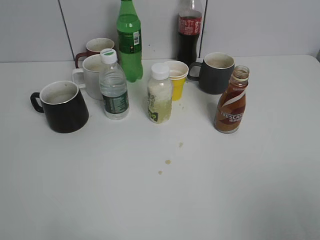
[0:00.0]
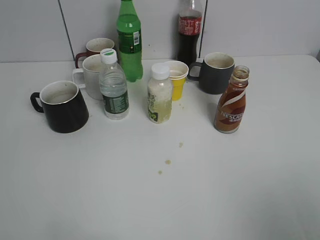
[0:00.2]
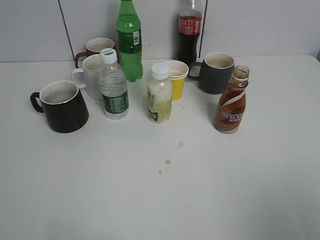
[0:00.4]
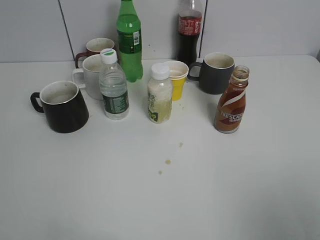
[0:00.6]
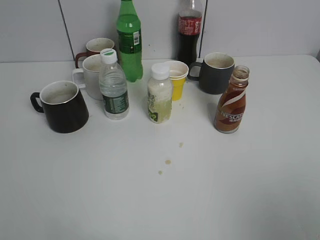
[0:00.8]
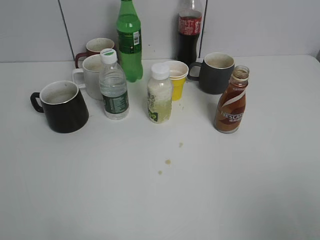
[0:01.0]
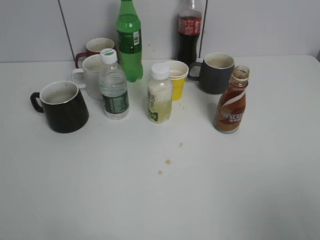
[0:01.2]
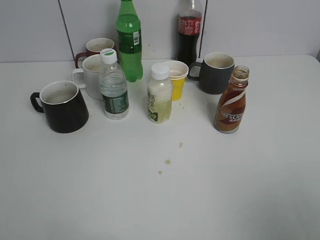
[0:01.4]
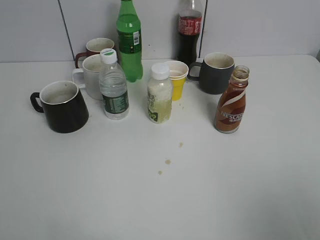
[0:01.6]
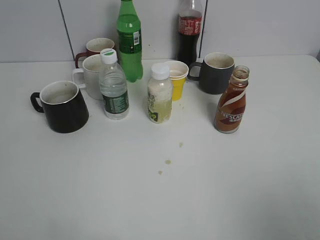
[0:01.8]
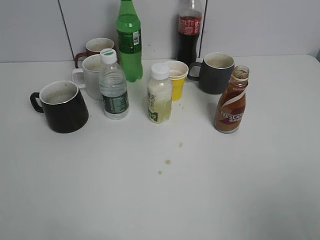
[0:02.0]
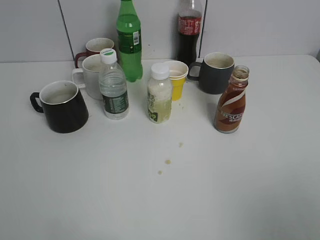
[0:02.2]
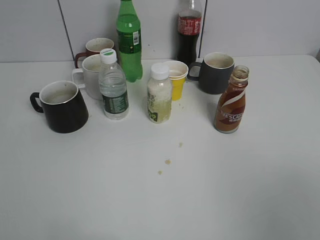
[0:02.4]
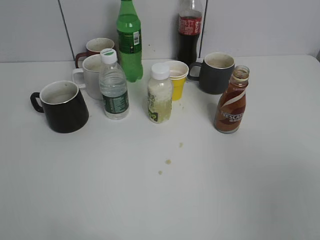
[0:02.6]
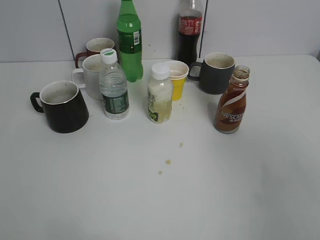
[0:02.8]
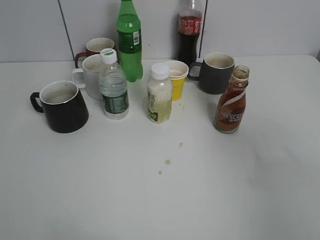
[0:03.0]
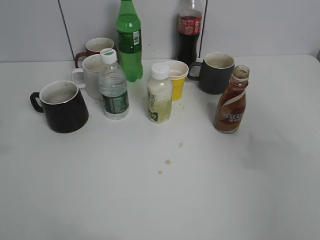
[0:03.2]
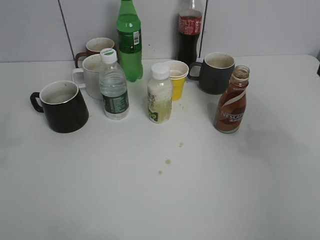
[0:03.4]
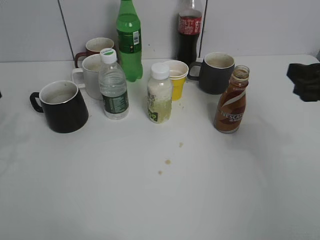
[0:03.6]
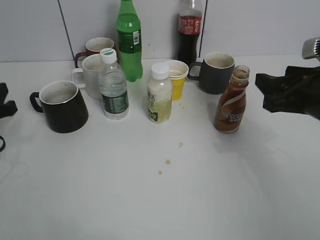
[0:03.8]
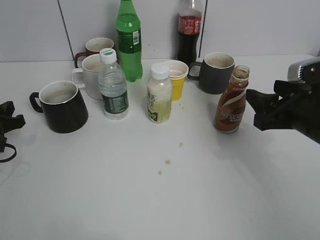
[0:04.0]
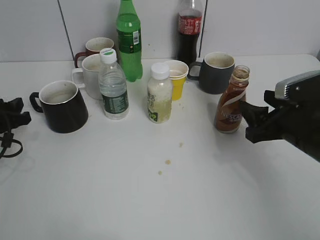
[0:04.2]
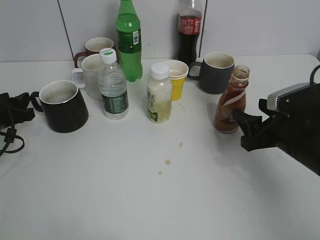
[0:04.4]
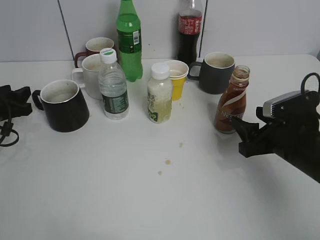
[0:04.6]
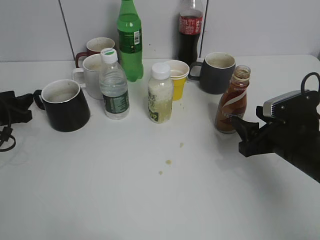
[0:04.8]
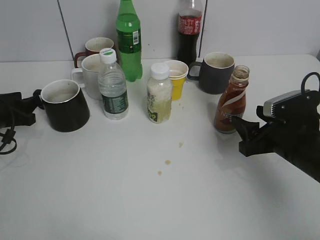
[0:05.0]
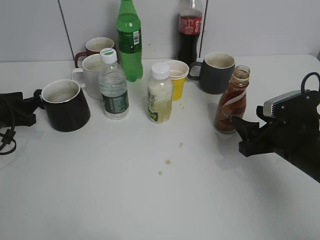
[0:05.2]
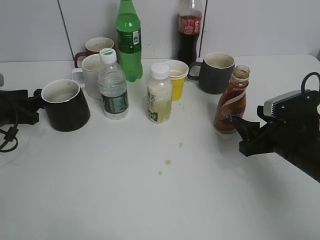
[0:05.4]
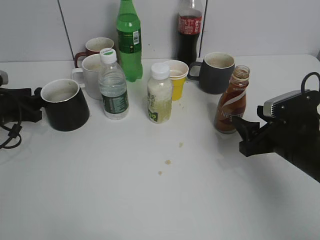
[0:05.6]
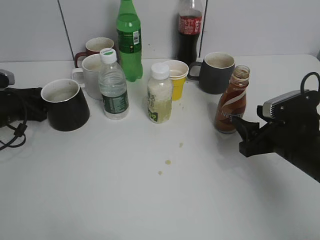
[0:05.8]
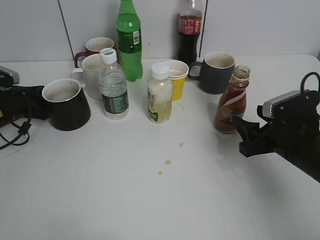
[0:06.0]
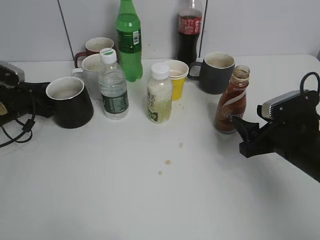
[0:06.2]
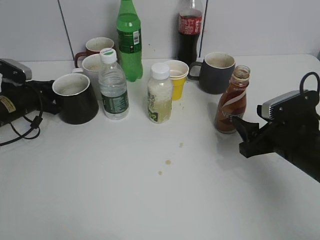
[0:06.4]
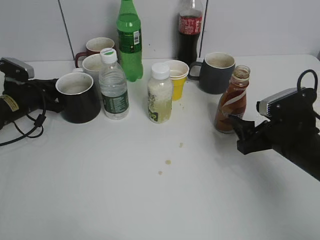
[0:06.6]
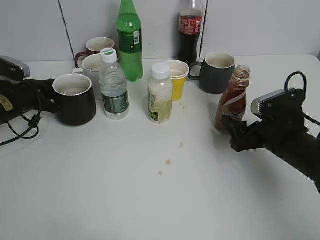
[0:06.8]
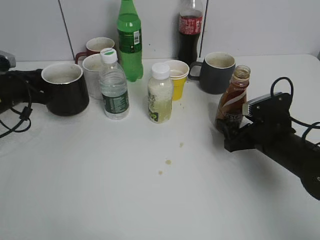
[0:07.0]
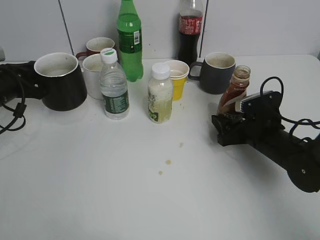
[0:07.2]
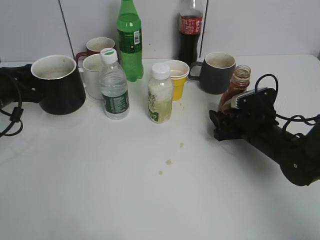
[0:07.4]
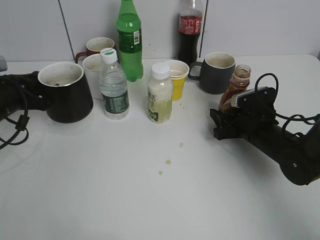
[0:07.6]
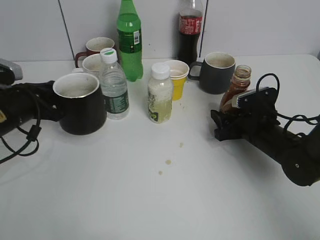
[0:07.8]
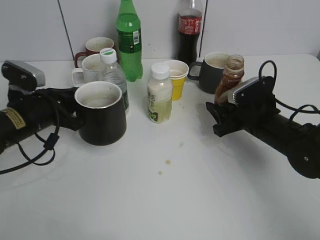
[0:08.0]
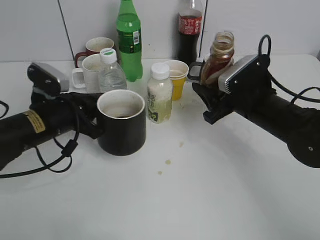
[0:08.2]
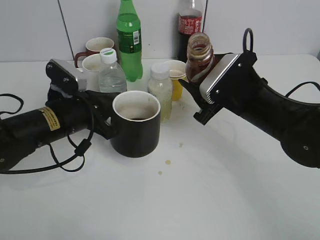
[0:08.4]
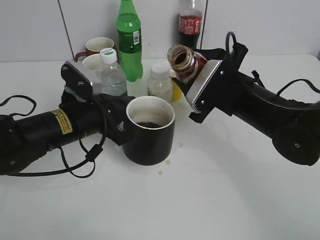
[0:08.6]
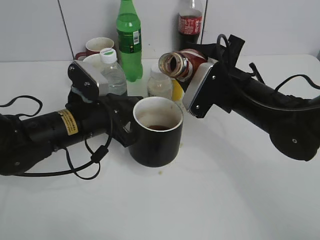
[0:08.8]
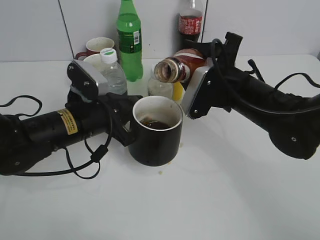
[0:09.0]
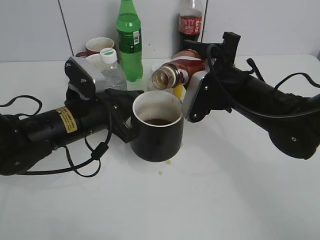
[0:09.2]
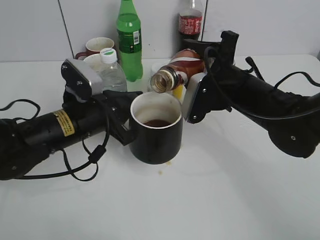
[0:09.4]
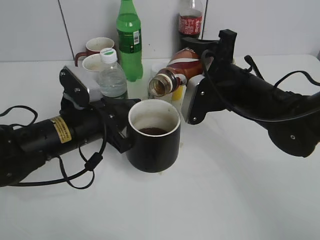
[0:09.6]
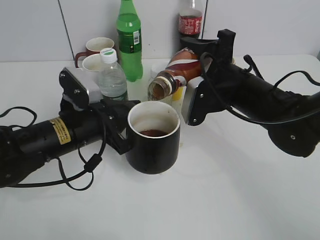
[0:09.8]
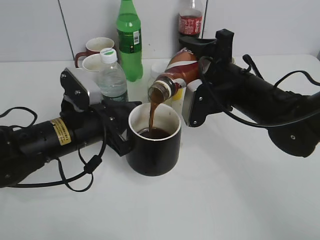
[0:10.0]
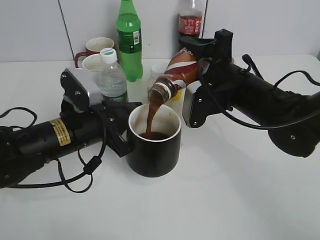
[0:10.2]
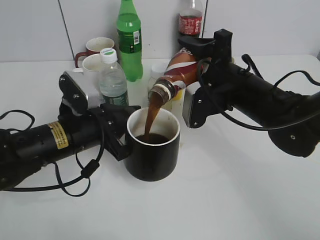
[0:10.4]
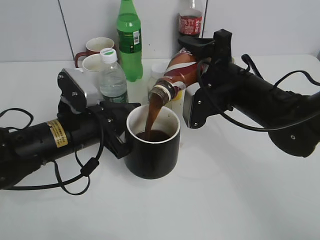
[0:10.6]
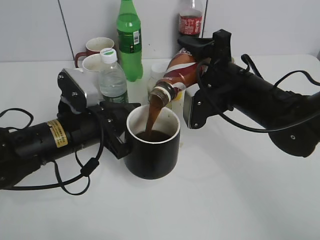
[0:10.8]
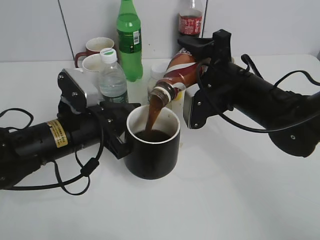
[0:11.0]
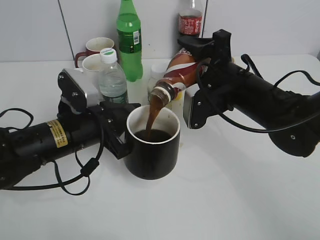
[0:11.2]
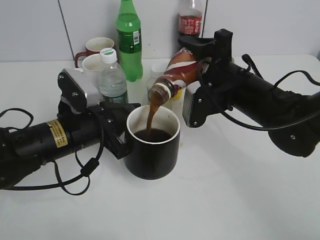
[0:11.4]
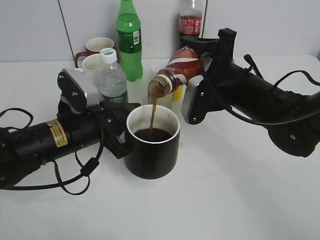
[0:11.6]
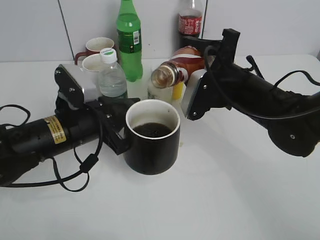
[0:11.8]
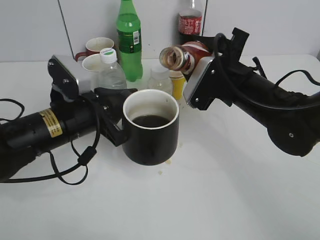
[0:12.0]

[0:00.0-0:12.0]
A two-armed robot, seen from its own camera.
Step, 0:02.2 to 0:06.4: Grasp the black cup with left gripper.
Step, 0:06.8 to 0:07.6: Lift the black cup with left gripper.
0:01.6 to 0:03.0: The right gripper heads forward, covering roughly 10 cm, and closes up.
0:03.0 to 0:04.4: The grippers both shift downward and forward by approximately 25 cm. The left gripper opens.
0:04.4 to 0:06.0: The left gripper moves forward, about 5 cm.
0:06.0 to 0:07.6: The right gripper travels forward and downward by some 10 cm, and opens, then closes once more. Meanwhile the left gripper shifts roughly 5 cm upward, and closes its fingers.
0:07.6 to 0:09.0: The left gripper shifts about 15 cm to the right. The right gripper heads upward and to the left, covering approximately 15 cm.

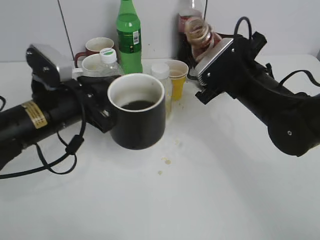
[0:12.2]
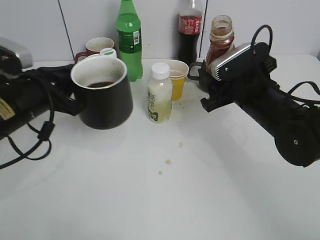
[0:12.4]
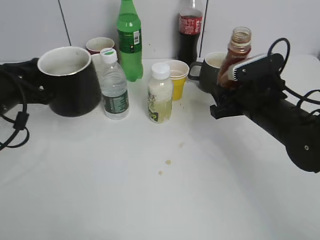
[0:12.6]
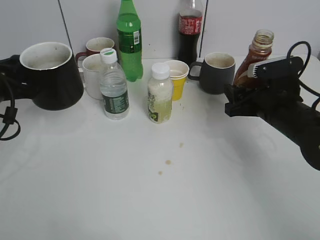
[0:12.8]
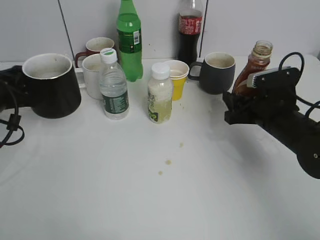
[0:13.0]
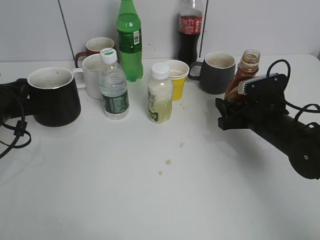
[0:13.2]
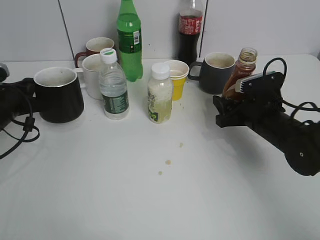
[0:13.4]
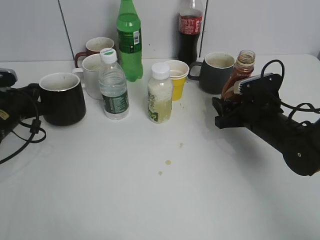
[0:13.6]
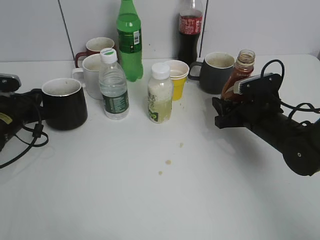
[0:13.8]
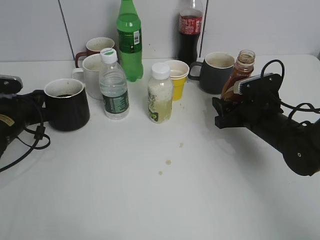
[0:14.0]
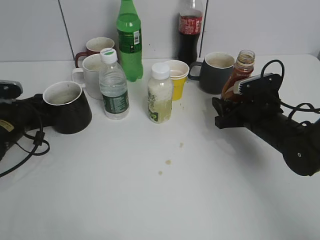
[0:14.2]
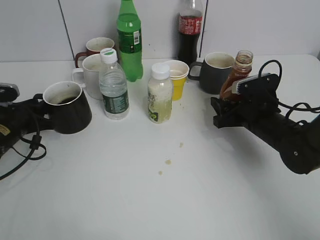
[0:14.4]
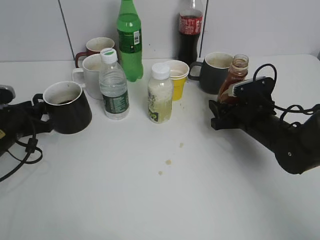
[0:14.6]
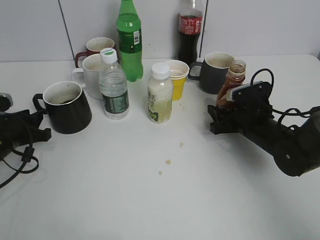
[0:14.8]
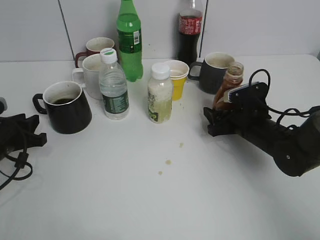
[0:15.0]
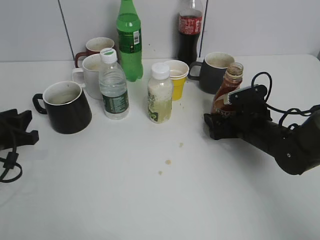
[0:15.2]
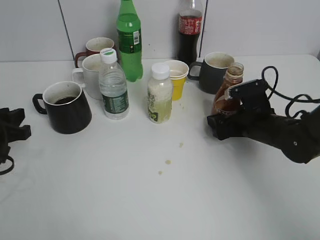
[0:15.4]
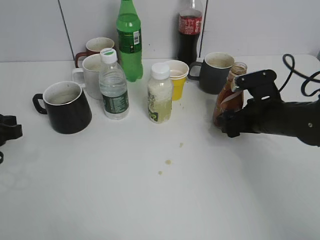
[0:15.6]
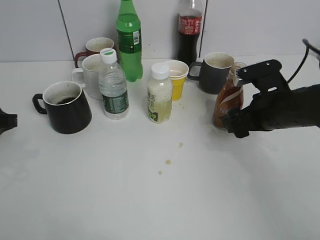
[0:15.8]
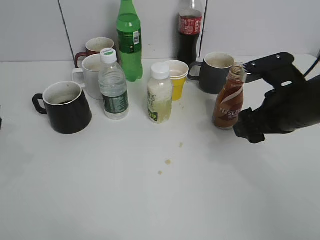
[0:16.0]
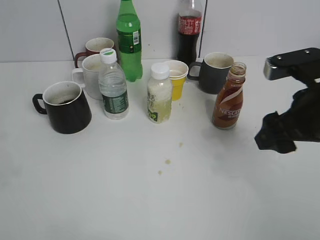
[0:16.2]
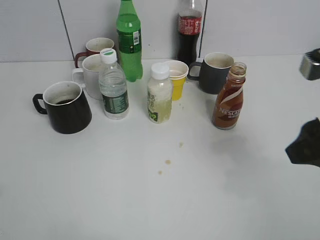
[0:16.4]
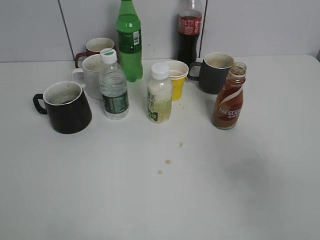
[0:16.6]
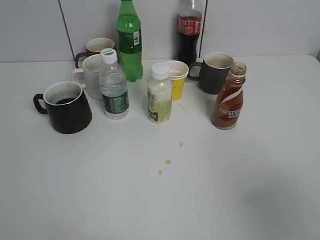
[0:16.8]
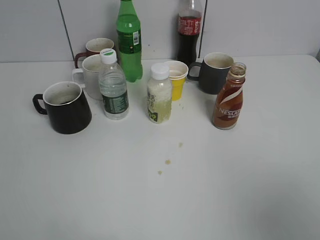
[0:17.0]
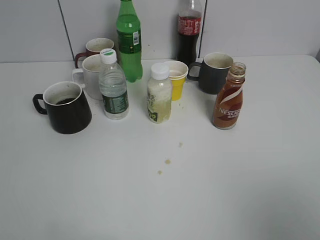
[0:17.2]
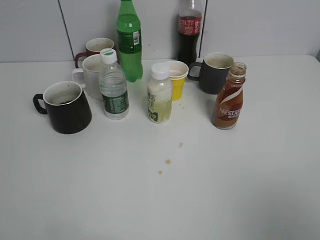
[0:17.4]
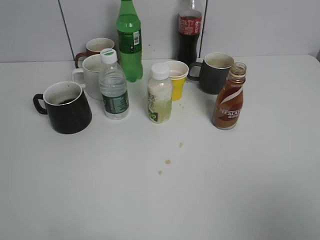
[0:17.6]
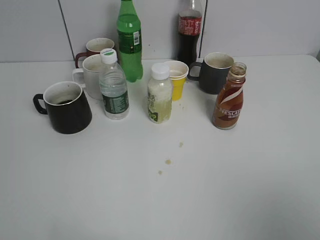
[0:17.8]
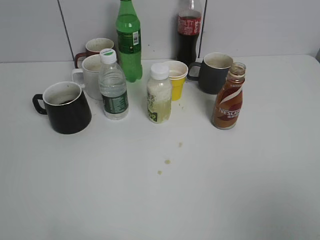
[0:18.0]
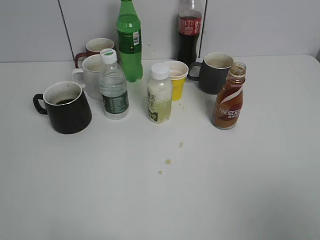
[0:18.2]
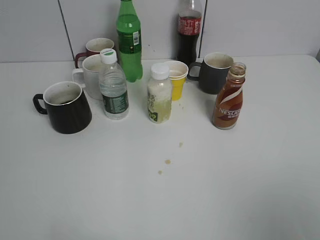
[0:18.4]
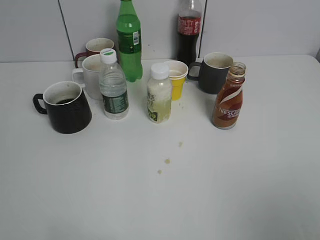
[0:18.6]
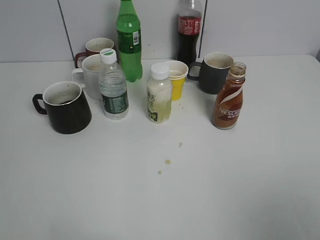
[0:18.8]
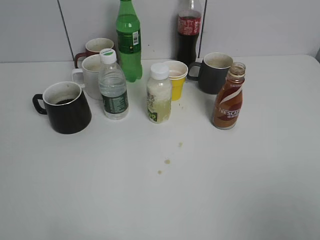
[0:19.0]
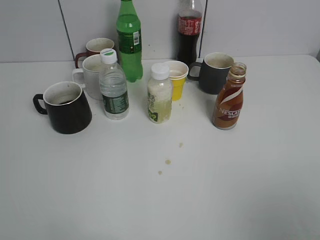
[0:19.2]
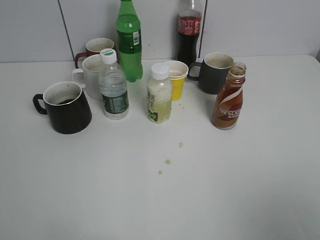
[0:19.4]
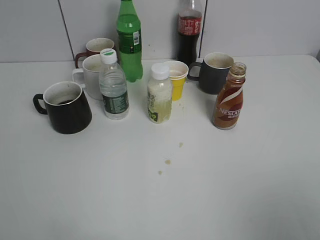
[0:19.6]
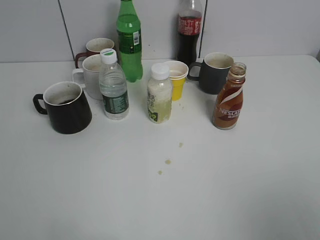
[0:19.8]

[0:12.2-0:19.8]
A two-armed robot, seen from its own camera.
Step, 0:12.2 to 0:15.6: Place the coffee bottle on the table with right gripper.
0:12.2 to 0:13.8: The left gripper heads to the left, downward and forward, covering about 20 cm, while the right gripper travels downward and to the right by some 10 cm.
0:13.8 to 0:15.2: The left gripper heads backward, covering approximately 10 cm, and opens up, while the right gripper opens.
0:15.2 to 0:16.8: Both grippers move backward and upward, approximately 30 cm. The right gripper closes up.

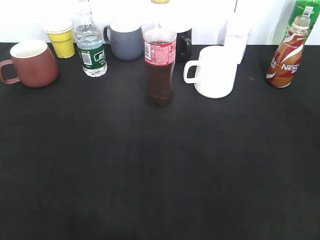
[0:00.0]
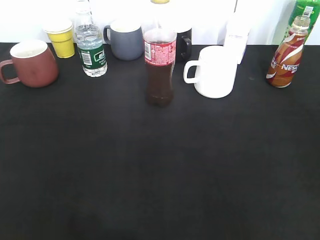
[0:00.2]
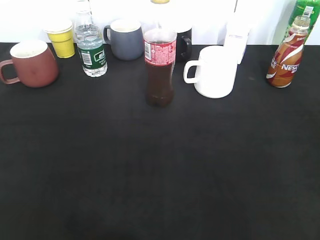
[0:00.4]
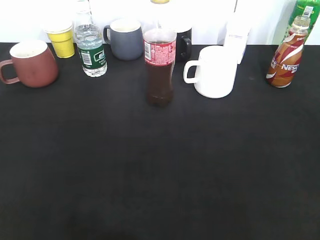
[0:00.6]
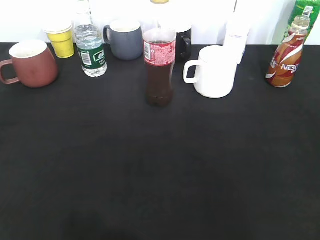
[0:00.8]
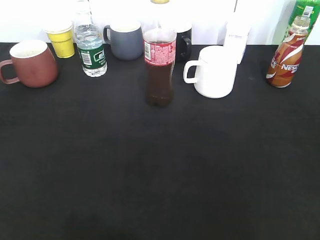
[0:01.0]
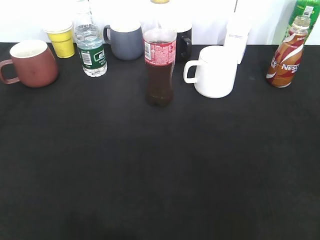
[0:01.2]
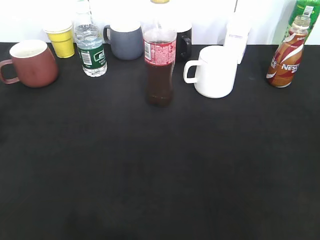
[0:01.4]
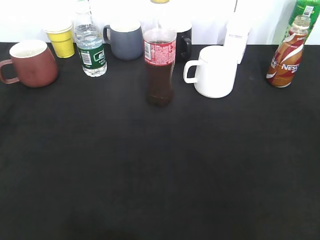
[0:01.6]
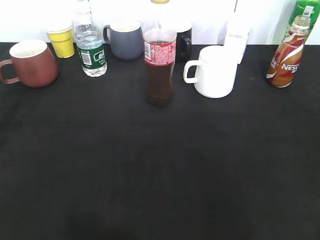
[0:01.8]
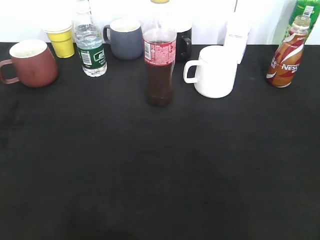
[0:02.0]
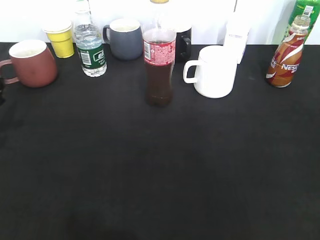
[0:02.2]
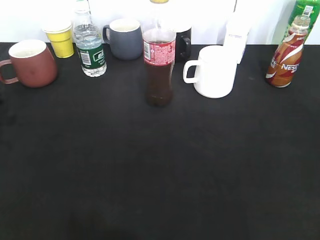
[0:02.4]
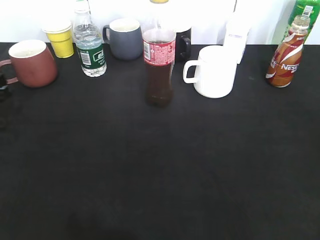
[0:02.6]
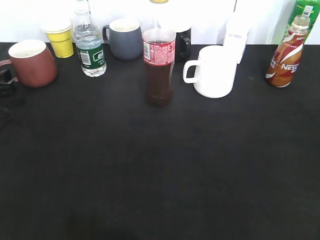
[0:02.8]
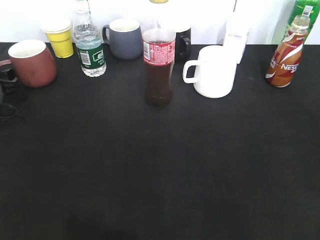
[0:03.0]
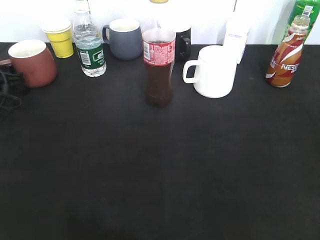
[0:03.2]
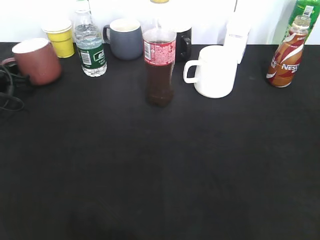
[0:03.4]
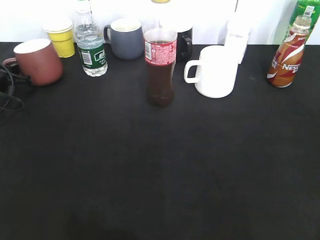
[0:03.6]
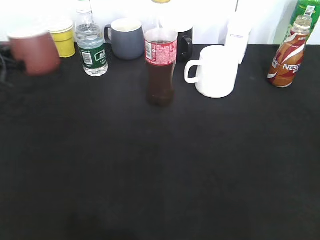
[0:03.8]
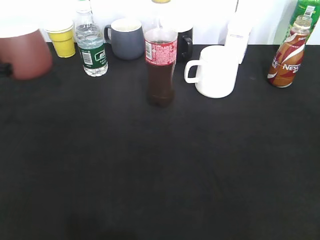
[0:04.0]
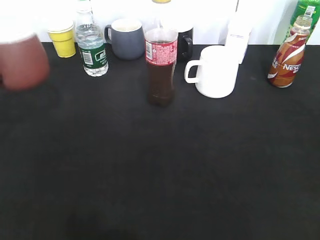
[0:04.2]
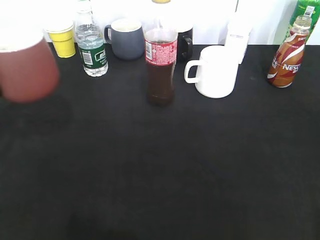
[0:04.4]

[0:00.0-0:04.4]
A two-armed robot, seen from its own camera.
Step, 0:02.0 to 0:03.4: Grasp the red cup with left gripper.
0:01.4 to 0:03.0: The left gripper moves forward and downward, approximately 25 cm.
0:03.0 to 0:04.4: The left gripper moves backward and upward, about 15 cm, and closes.
